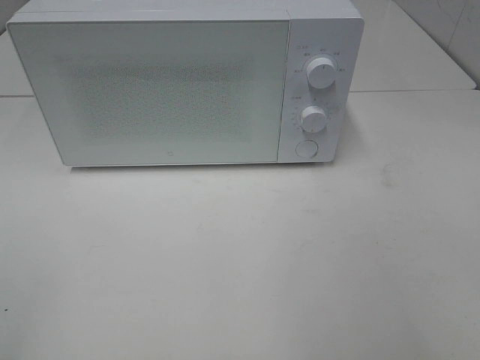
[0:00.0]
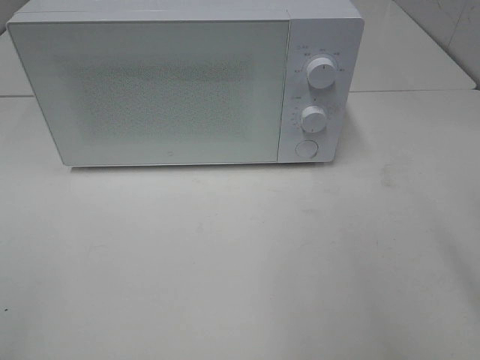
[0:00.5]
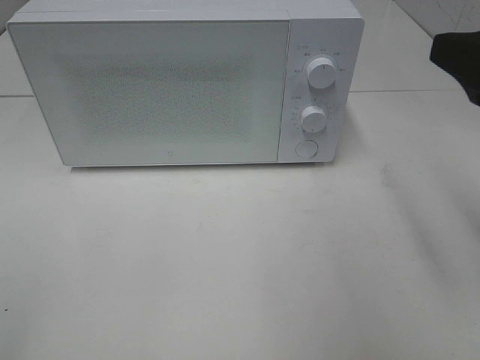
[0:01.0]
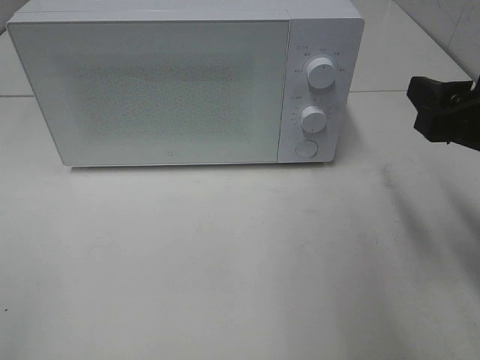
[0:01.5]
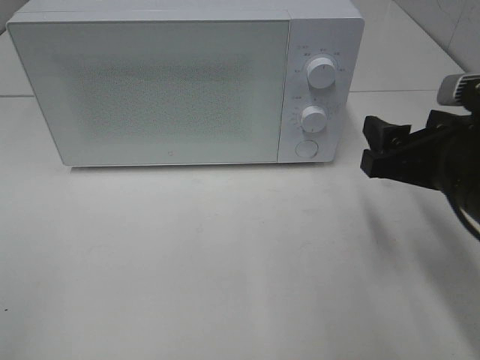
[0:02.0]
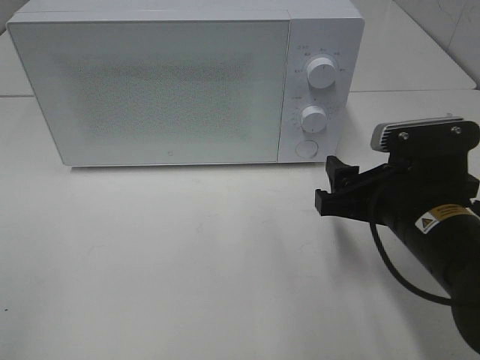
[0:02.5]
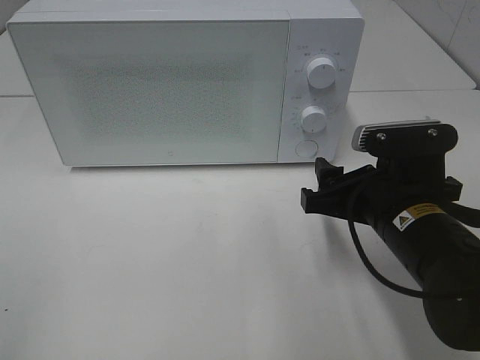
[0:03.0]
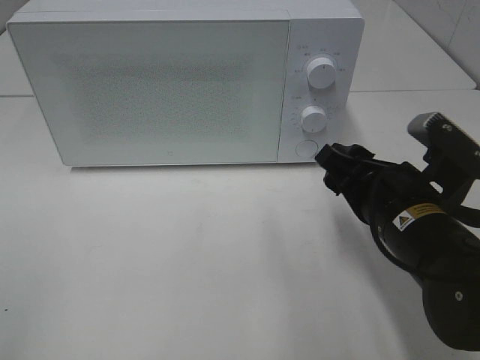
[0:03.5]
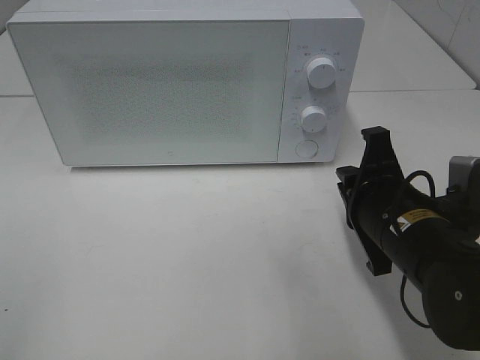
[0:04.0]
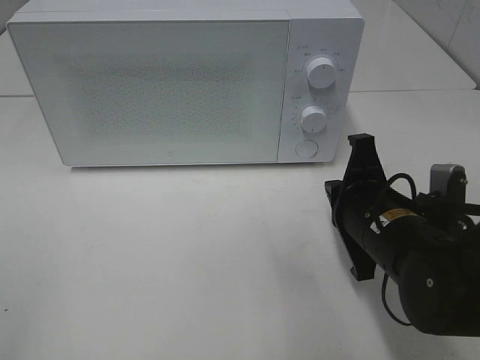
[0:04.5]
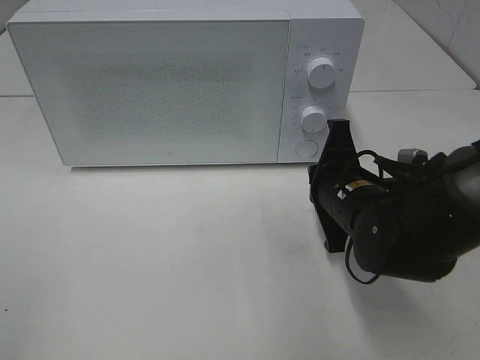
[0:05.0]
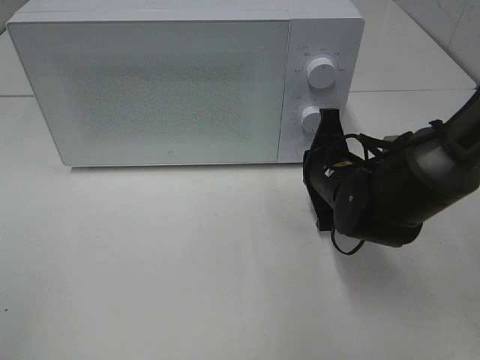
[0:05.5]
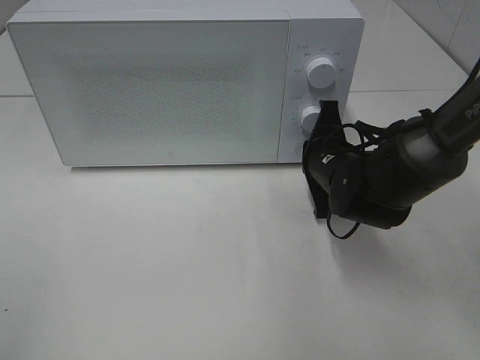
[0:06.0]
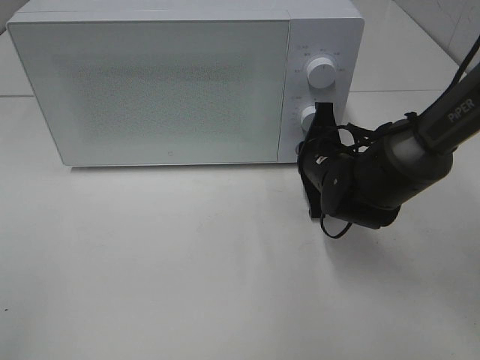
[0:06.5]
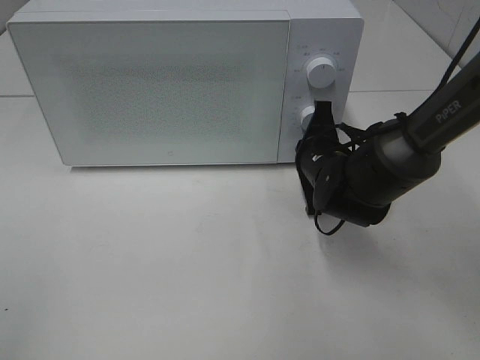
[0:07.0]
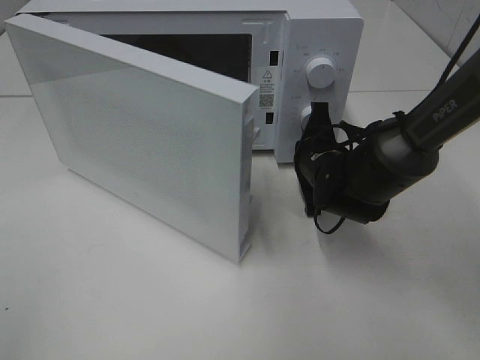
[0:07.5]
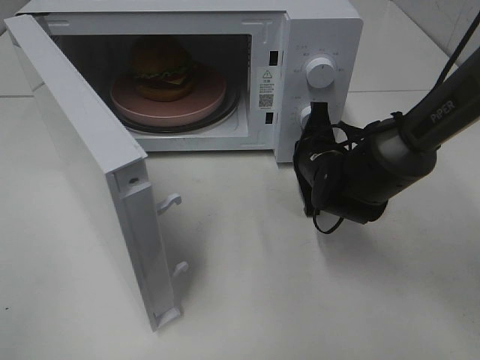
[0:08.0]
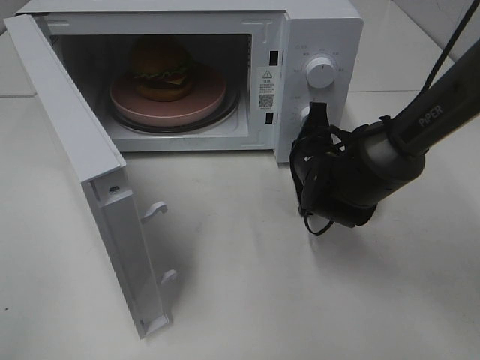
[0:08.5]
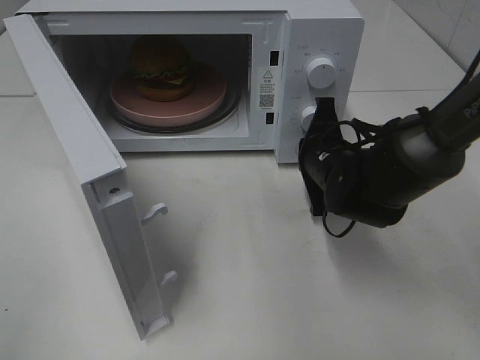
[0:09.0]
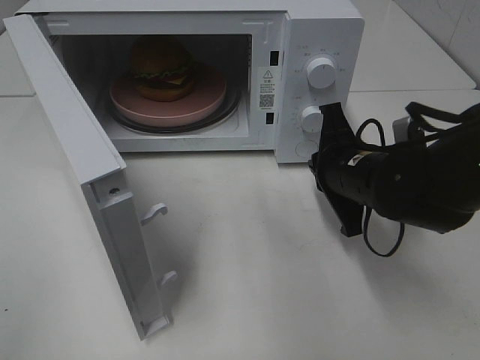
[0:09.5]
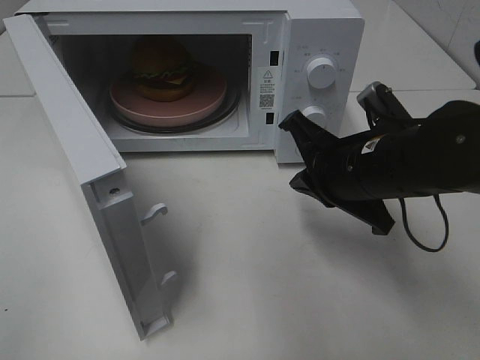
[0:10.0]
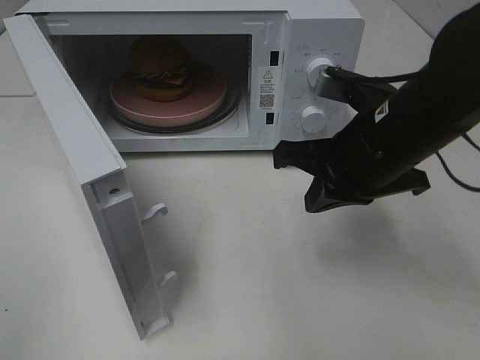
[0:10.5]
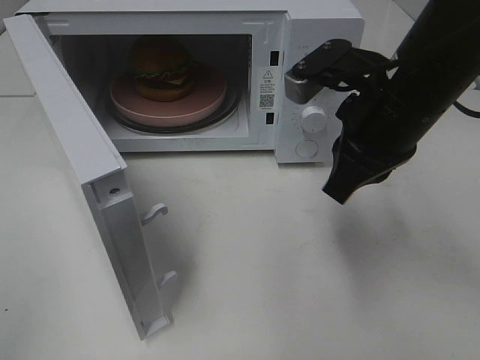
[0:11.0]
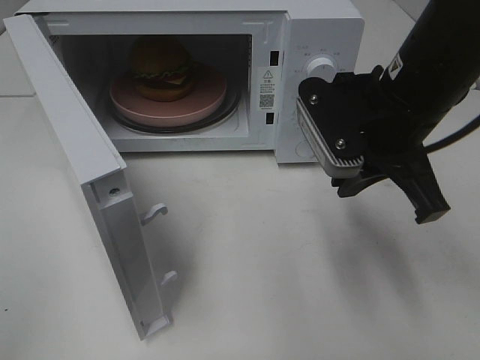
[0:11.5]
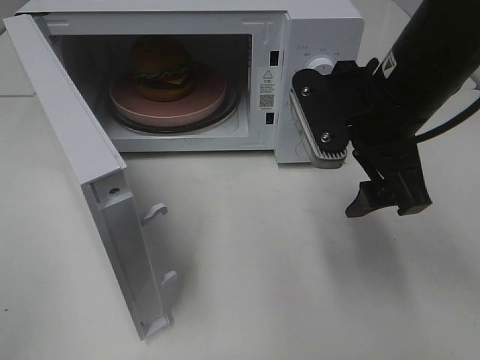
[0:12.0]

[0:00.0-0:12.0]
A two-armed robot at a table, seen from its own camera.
Task of the whole recording: Heat the burger.
Step, 0.0 to 9.0 s: Right hand: press the switch.
0.0 to 2.0 s: The right gripper travels forward, downward and to the left by about 25 cm.
2.0 to 4.0 s: The right gripper moves to the left and downward, approximately 10 cm, and closes up.
4.0 to 6.0 s: The right gripper travels forward by about 15 cm.
8.0 to 10.0 s: The right gripper moves backward and upward, roughly 15 cm.
10.0 to 12.0 s: The right gripper is displaced upward by some 10 cm, and opens its fingers.

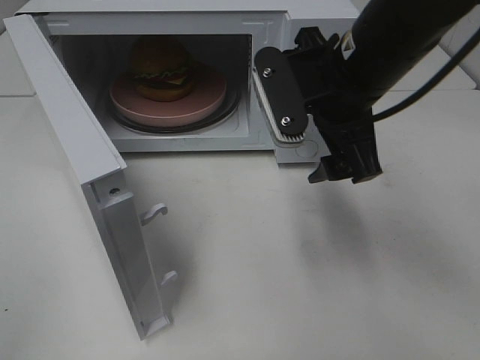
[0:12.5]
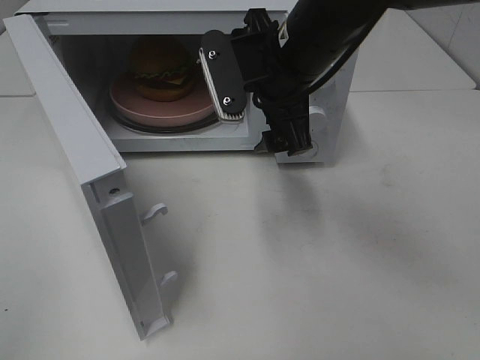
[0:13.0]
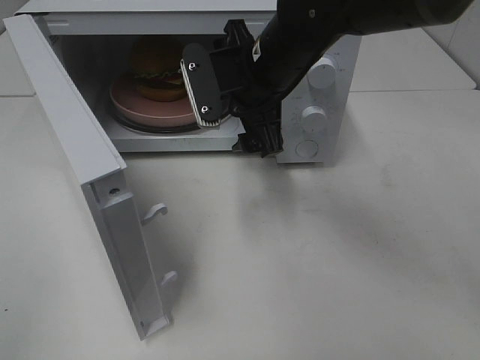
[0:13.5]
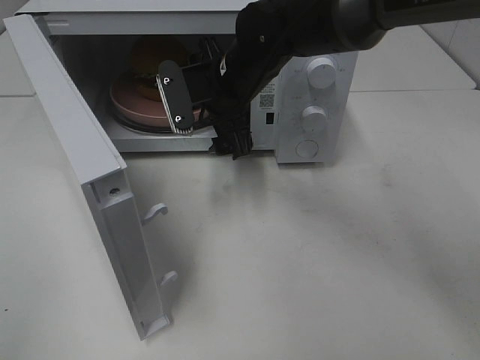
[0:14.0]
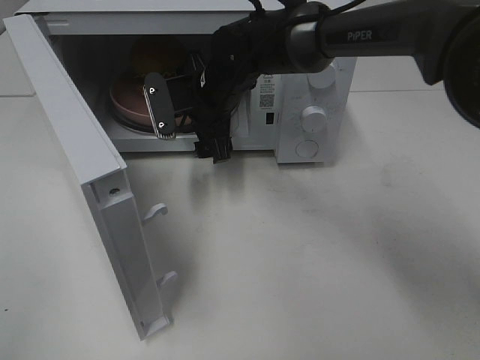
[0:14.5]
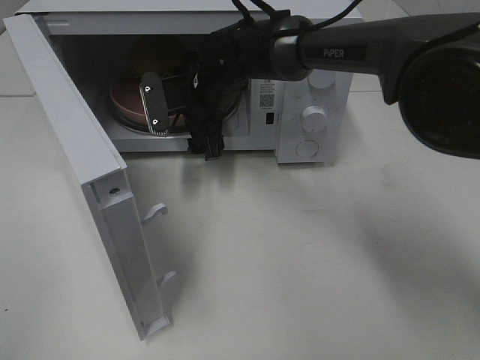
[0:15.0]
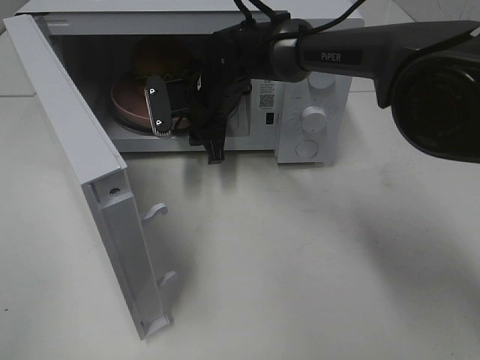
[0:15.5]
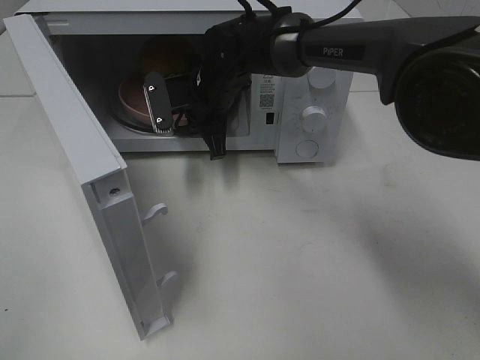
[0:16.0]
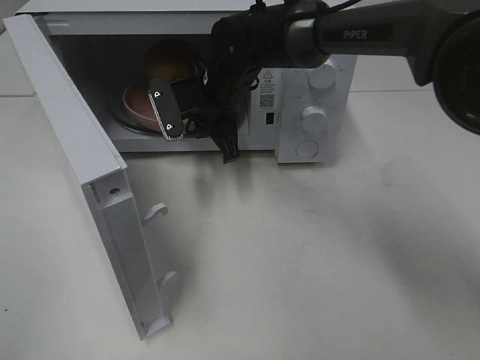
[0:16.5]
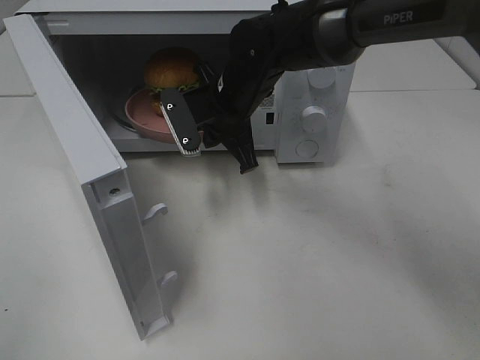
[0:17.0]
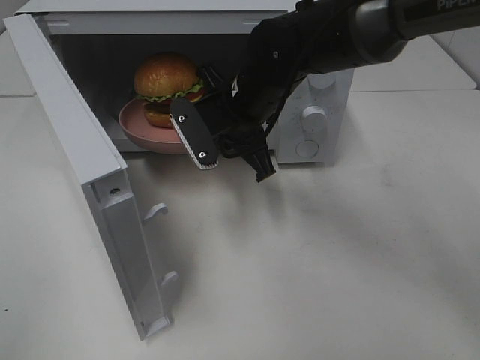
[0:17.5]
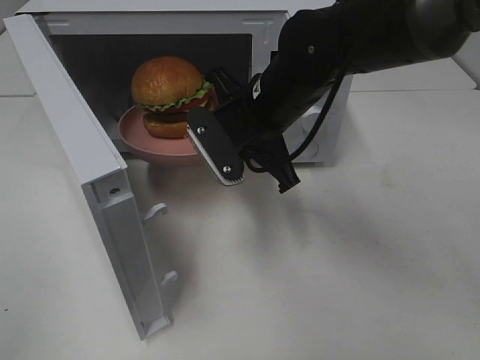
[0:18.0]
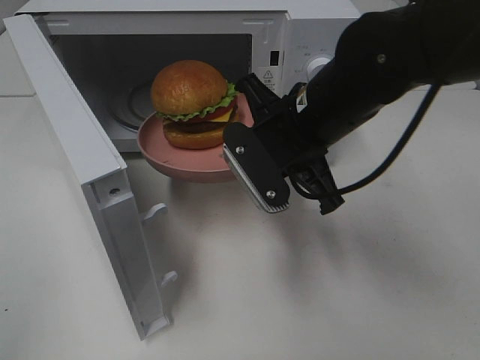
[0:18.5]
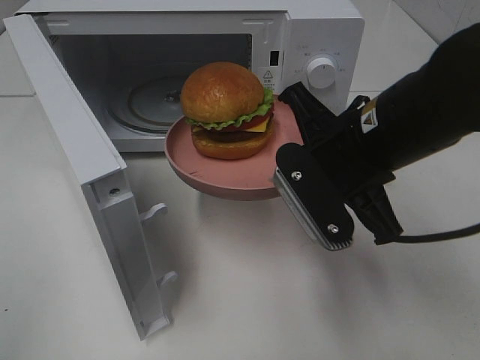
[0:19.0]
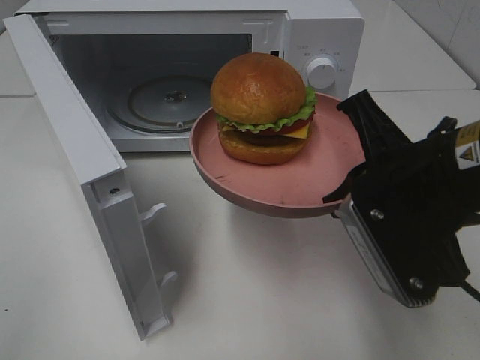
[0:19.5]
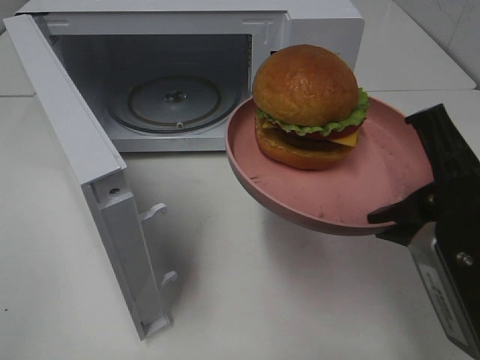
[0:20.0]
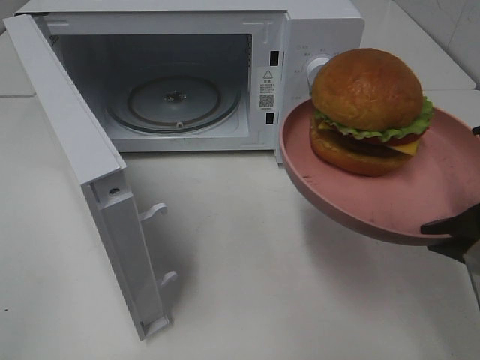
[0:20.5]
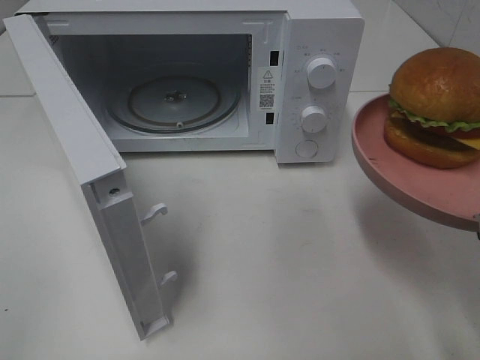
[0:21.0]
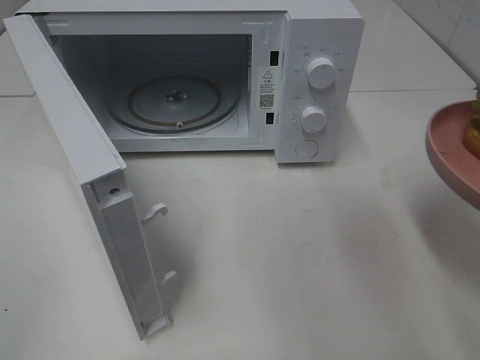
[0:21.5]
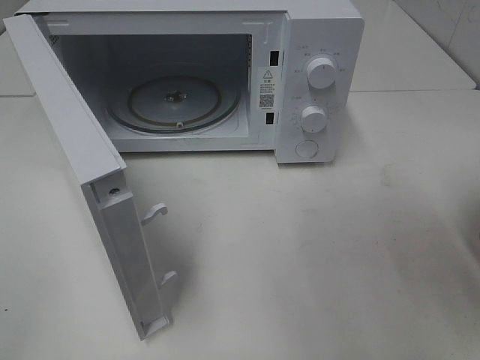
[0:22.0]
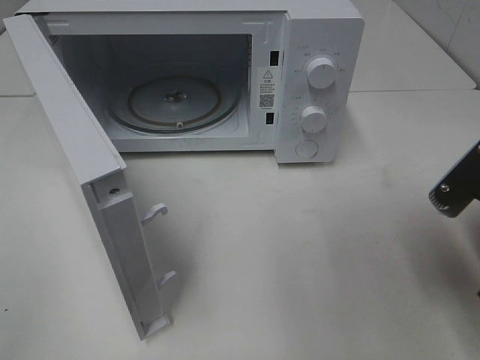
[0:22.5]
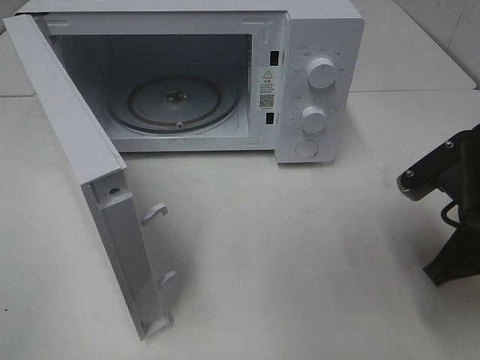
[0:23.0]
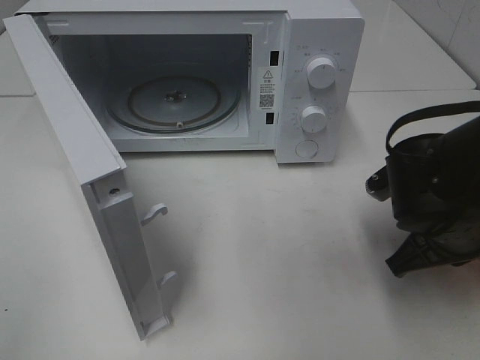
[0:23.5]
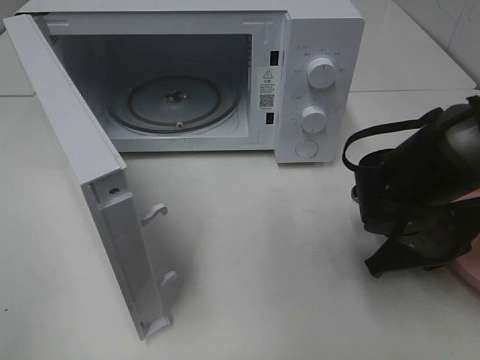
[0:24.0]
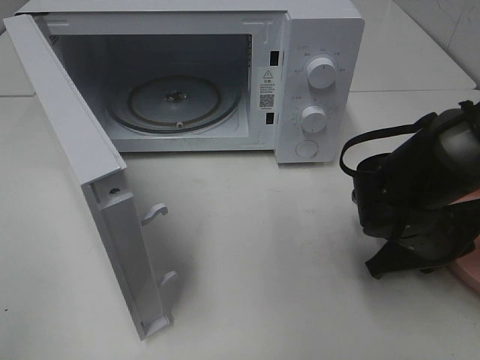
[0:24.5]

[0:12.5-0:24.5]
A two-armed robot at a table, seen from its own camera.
Task of the whole recording: Heat the burger.
Step, 12.5 to 16.0 s: Right hand: grab the plate with the hamburger.
12.5 to 14.5 s: The right gripper heads forward, to the left and downward, covering about 20 cm.
14.5 to 16.5 s: The right gripper closes its fingers.
16.5 to 18.5 s: The right gripper moves backward and to the right, roughly 15 cm.
18.5 to 20.5 s: The right gripper heads backward and to the right, covering about 20 cm.
20.5 to 22.5 s: The right gripper shifts by approximately 5 cm.
22.5 to 24.5 s: The right gripper heads downward and forward, covering approximately 15 cm.

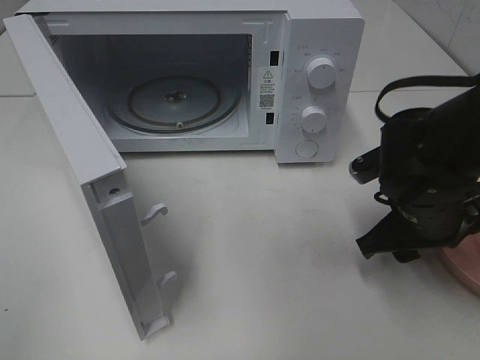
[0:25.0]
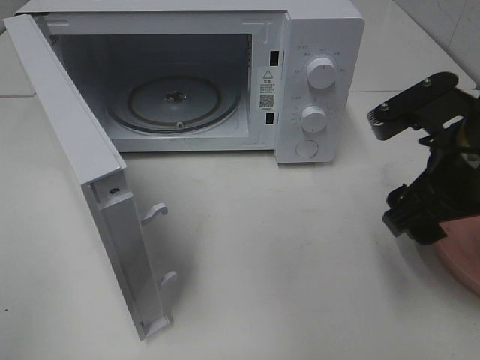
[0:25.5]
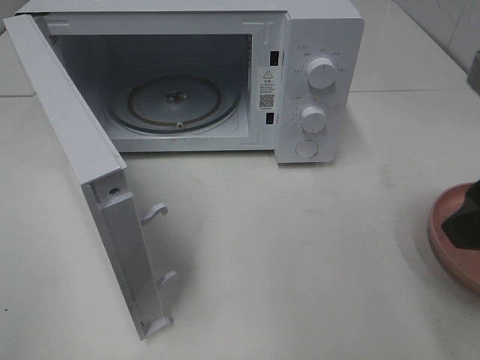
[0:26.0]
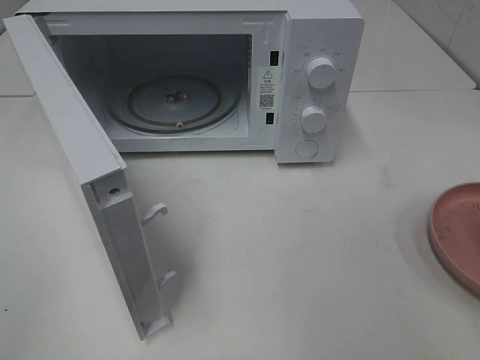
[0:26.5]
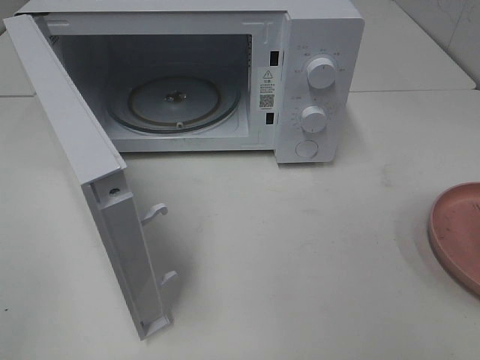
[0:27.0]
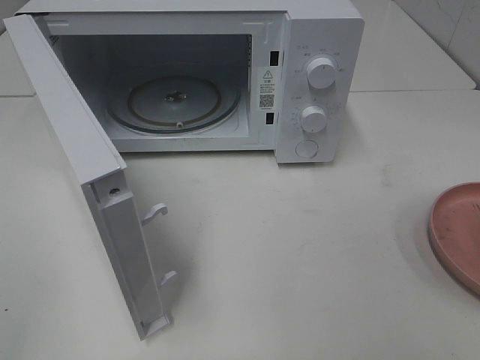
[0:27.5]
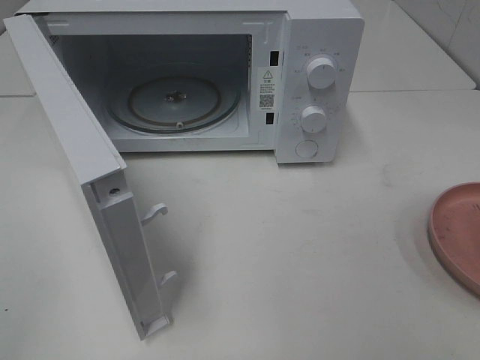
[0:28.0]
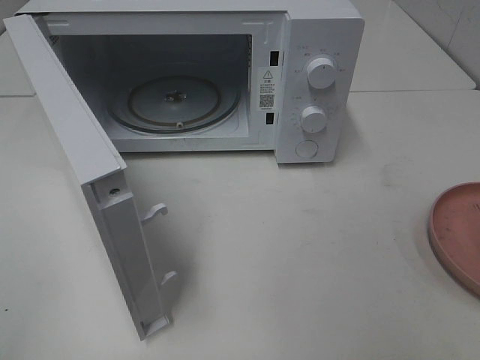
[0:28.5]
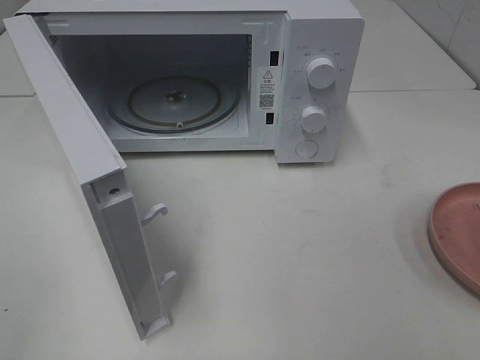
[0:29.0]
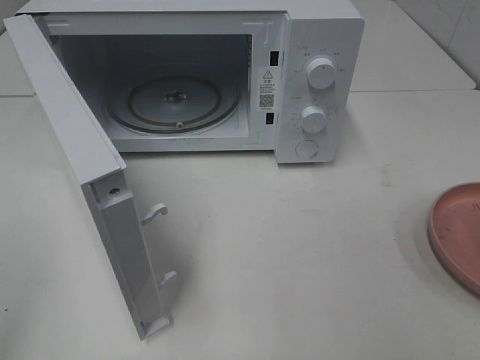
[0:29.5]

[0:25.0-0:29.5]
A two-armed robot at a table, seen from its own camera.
Task of the whole recording: Heat the burger.
25.0 to 27.0 s: The right gripper moves backward, upward and to the right, about 30 cm.
